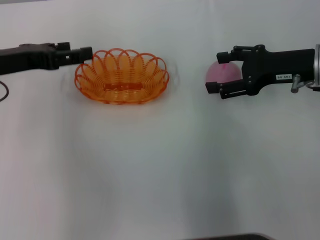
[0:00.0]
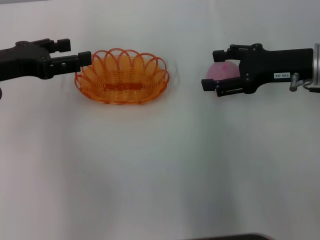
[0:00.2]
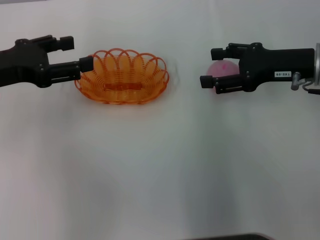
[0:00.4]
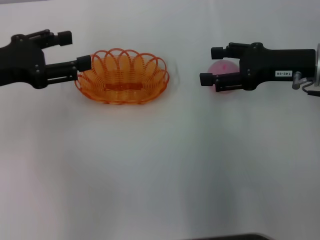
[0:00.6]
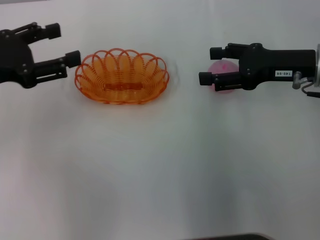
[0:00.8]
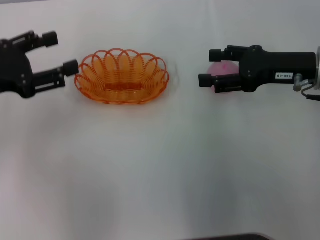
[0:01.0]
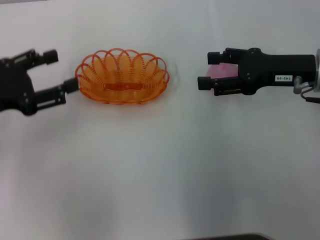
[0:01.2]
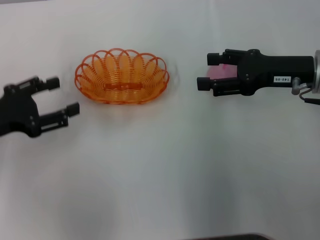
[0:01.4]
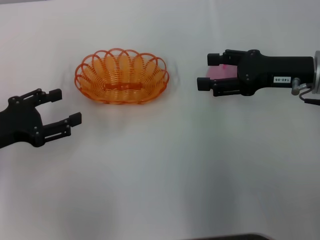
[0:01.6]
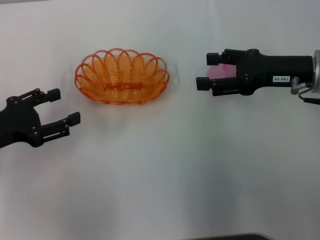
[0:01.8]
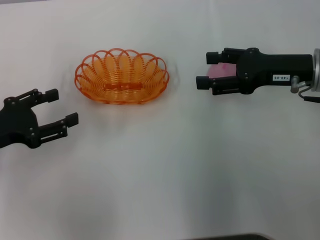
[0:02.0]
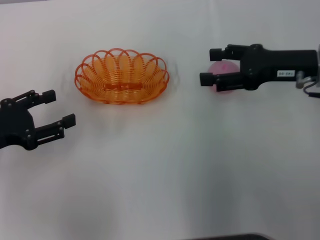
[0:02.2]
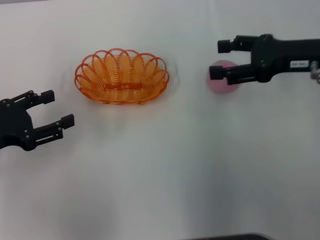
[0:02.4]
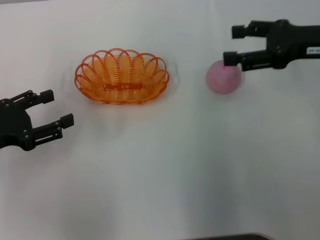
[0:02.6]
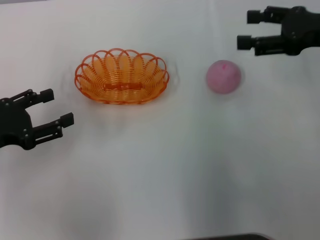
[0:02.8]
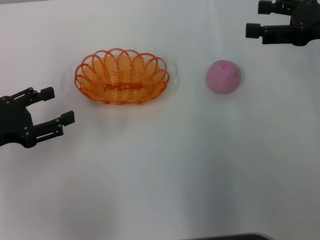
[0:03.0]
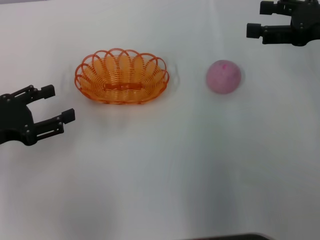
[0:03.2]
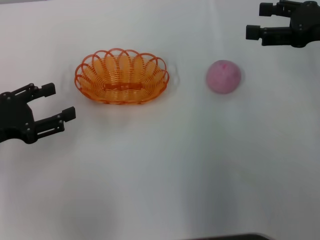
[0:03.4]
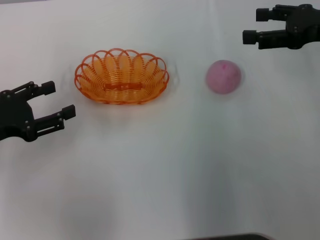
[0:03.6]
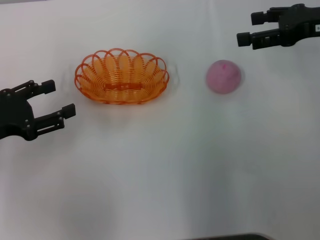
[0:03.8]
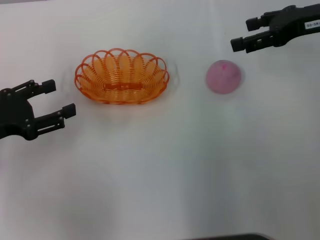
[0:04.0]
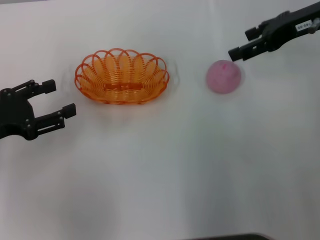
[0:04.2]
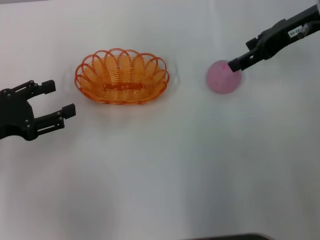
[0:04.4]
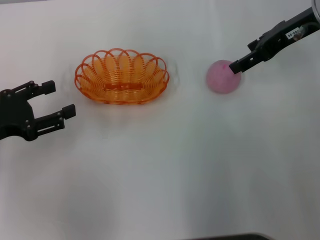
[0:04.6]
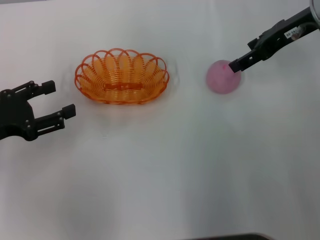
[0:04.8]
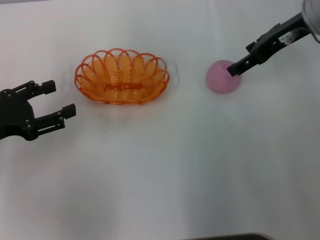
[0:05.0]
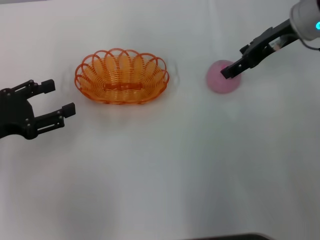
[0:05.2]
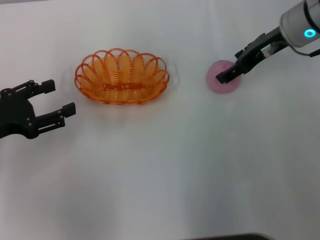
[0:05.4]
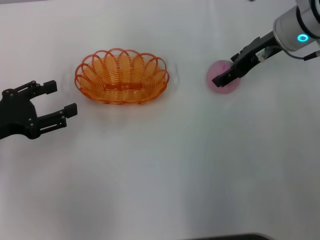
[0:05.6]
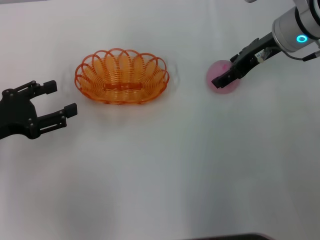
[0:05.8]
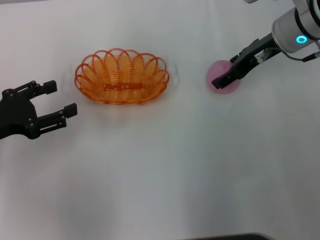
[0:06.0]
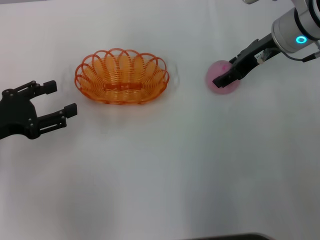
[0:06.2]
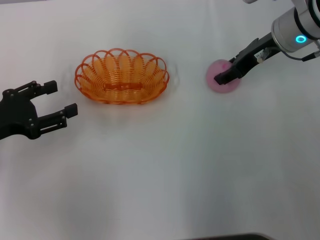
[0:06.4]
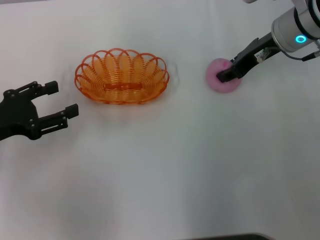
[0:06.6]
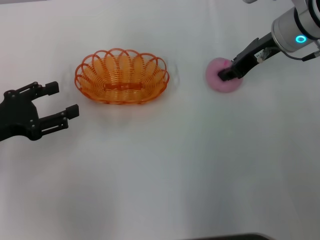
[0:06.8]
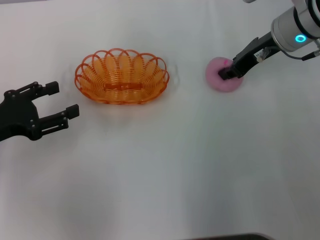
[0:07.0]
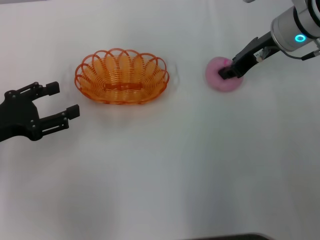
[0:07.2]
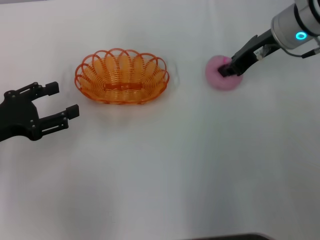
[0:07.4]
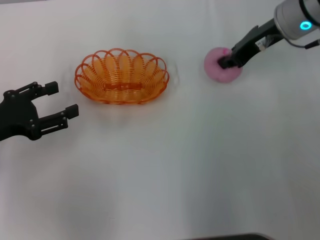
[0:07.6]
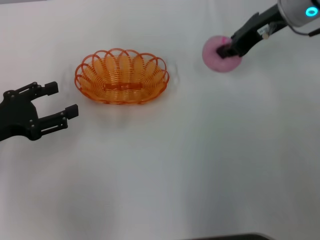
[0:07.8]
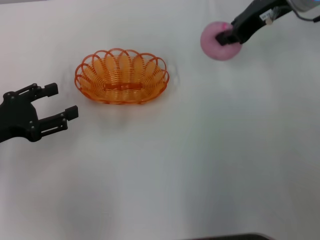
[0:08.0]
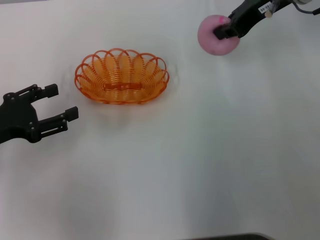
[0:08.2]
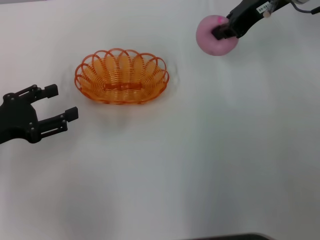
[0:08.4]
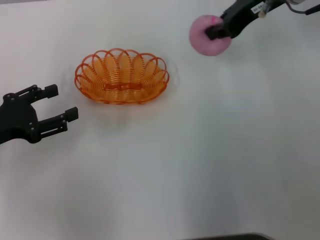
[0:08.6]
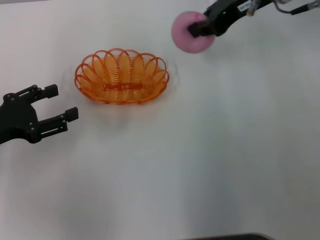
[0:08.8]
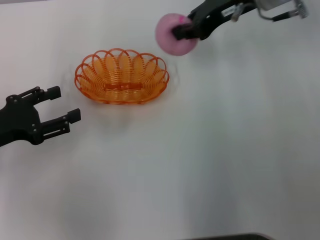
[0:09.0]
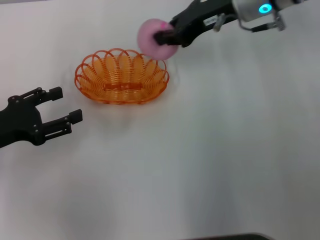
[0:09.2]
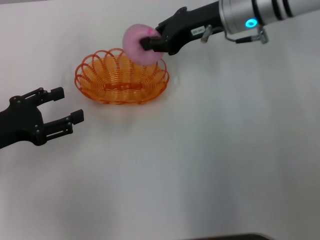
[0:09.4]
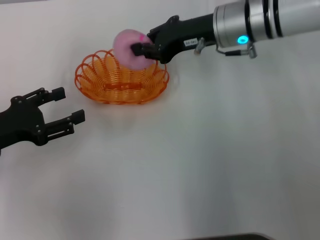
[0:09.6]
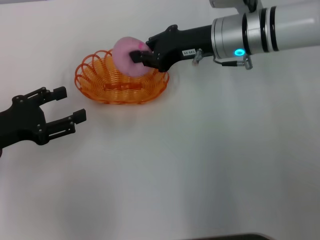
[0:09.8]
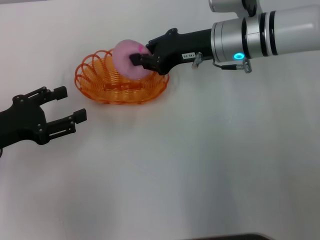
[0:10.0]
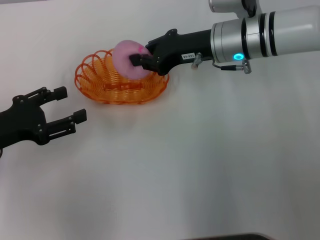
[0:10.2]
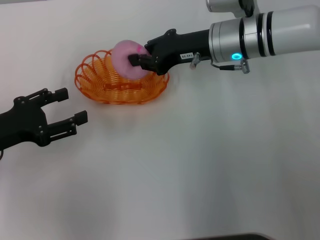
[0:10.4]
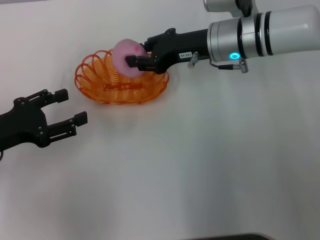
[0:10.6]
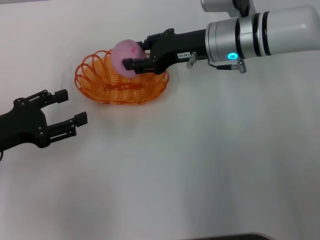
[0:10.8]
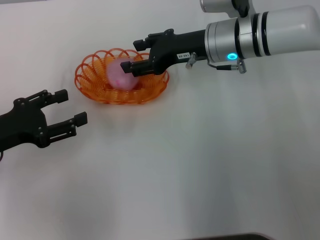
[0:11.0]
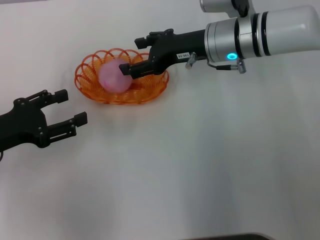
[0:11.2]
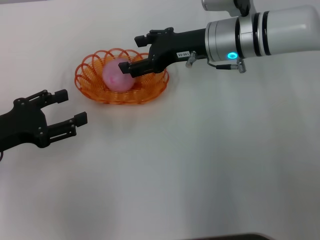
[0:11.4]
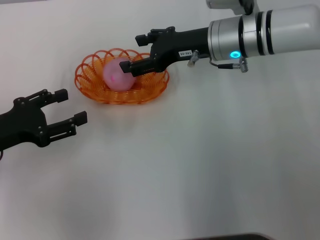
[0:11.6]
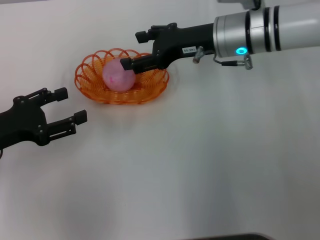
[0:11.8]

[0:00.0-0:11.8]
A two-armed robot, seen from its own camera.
Step, 0:00.0 to 0:08.4: Pick up the peach with the right gripper.
Step, 0:08.6 to 0:11.6: Place the peach into the basket with the right gripper.
0:00.0 to 0:01.4: The left gripper is displaced backward by approximately 5 cm.
0:01.4 to 0:03.0: The right gripper is displaced to the right and upward by some 10 cm.
0:03.0 to 0:04.4: The right gripper moves to the left and forward, about 10 cm.
0:04.4 to 0:06.0: The right gripper shifts about 5 cm downward.
0:06.0 to 0:07.4: The right gripper closes up.
0:07.4 to 0:08.8: The right gripper heads upward, covering some 5 cm.
0:08.8 to 0:10.4: The right gripper is displaced downward by some 10 cm.
0:10.4 to 0:11.8: The right gripper opens its fingers.

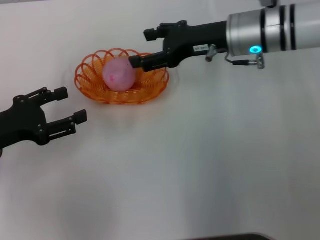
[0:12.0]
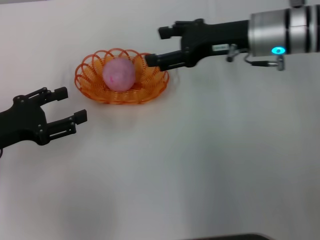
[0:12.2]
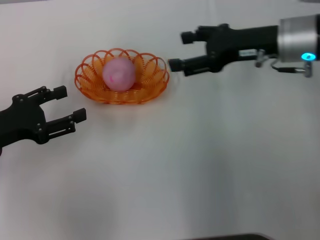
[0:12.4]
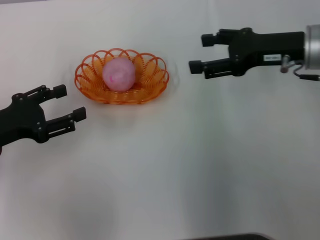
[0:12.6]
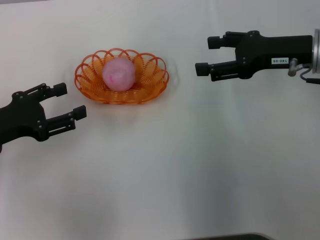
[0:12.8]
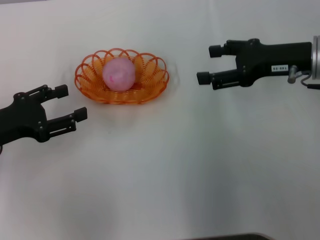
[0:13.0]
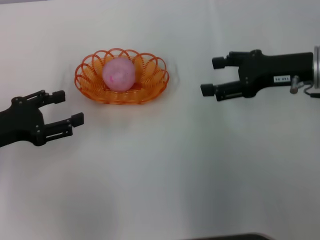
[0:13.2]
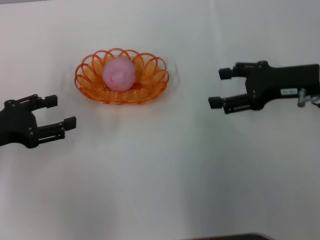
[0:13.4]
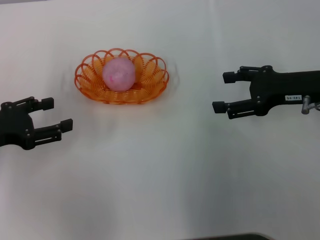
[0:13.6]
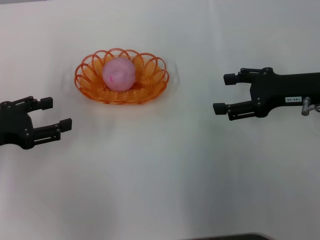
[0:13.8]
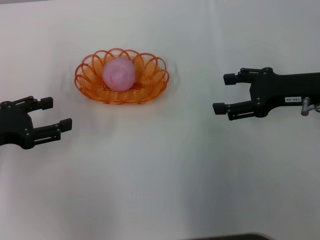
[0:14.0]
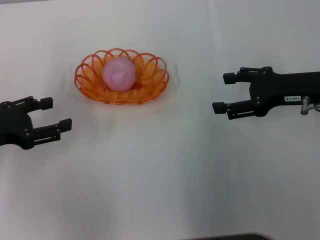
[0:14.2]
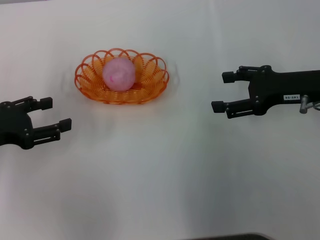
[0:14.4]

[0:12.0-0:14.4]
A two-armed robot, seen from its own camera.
0:12.0 to 0:13.2: The right gripper heads to the right and backward, covering roughly 10 cm.
0:13.2 to 0:14.4: The grippers stay close to where they were, moving slightly.

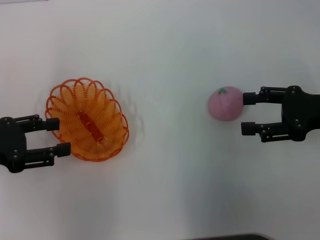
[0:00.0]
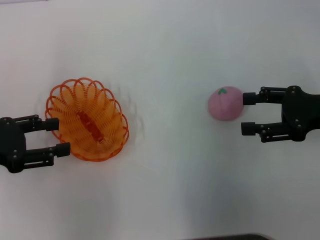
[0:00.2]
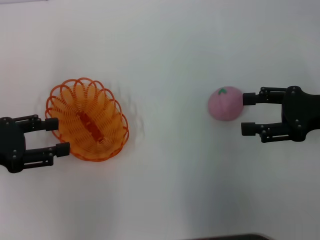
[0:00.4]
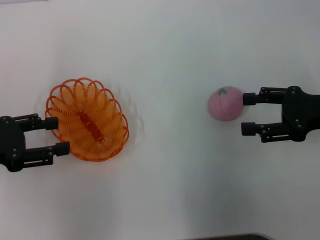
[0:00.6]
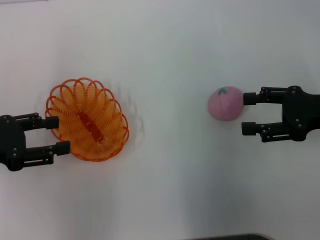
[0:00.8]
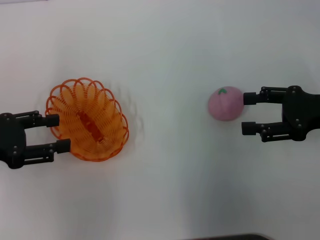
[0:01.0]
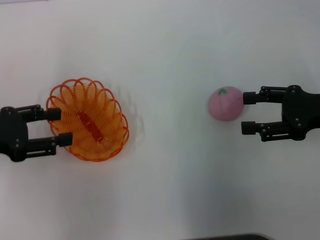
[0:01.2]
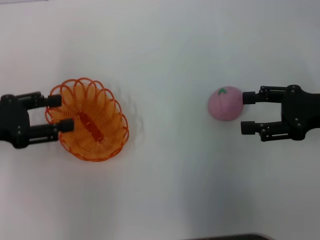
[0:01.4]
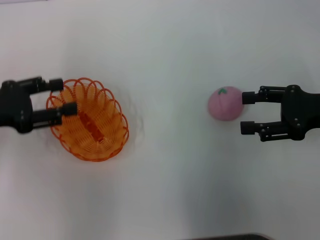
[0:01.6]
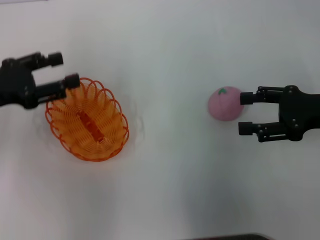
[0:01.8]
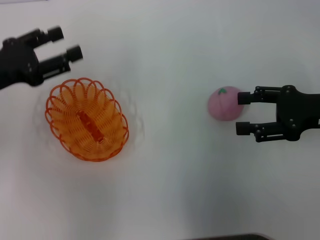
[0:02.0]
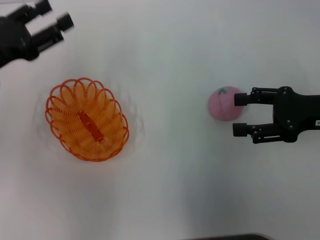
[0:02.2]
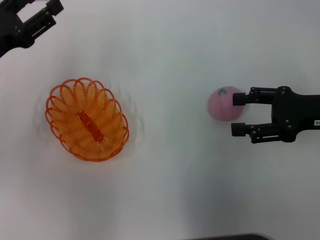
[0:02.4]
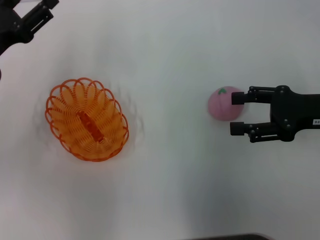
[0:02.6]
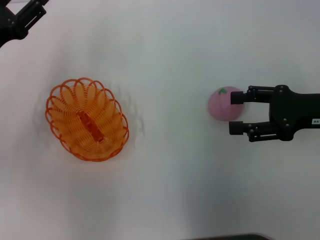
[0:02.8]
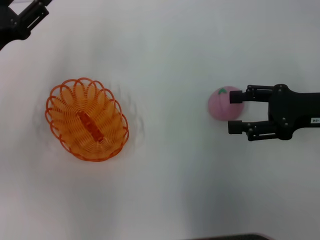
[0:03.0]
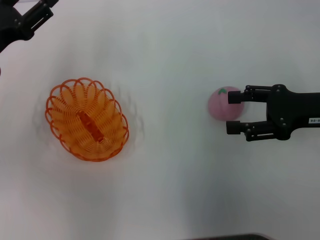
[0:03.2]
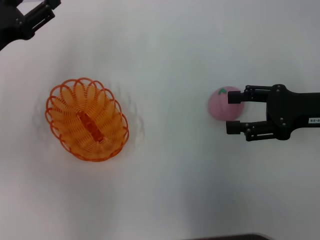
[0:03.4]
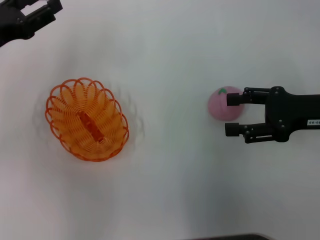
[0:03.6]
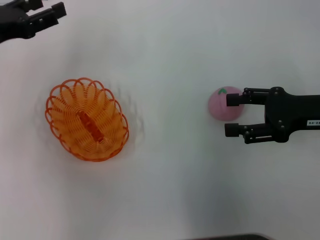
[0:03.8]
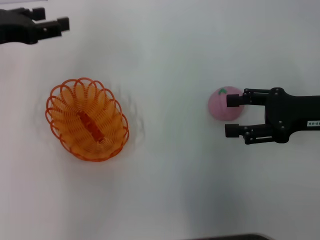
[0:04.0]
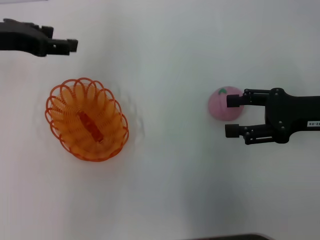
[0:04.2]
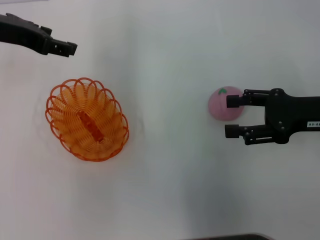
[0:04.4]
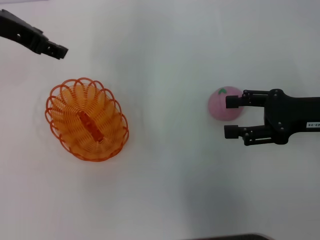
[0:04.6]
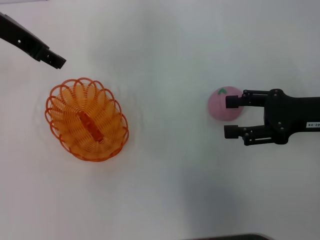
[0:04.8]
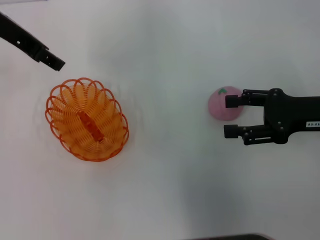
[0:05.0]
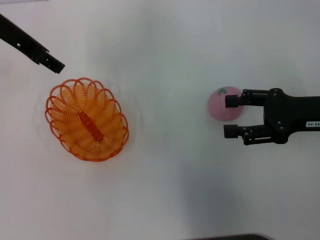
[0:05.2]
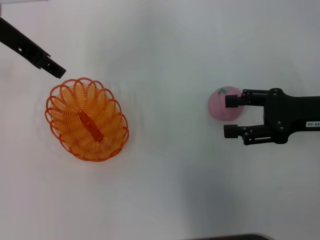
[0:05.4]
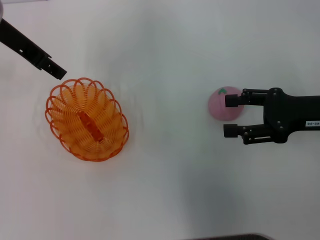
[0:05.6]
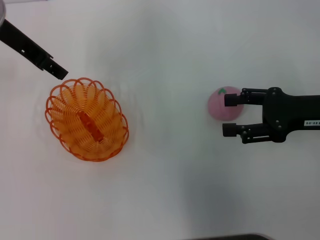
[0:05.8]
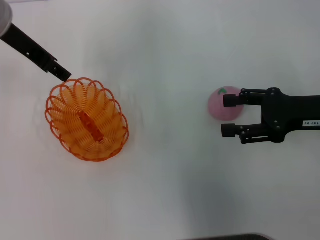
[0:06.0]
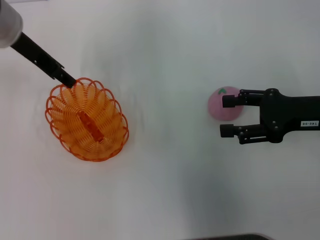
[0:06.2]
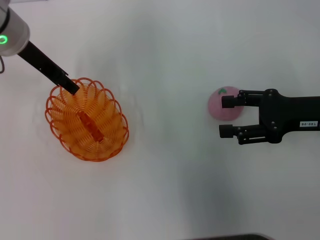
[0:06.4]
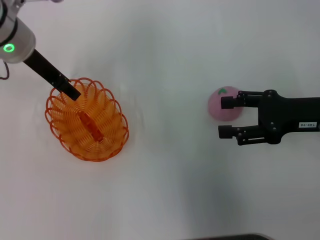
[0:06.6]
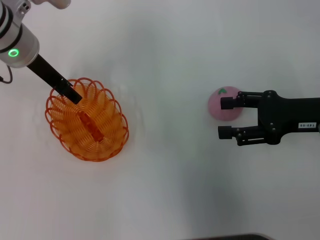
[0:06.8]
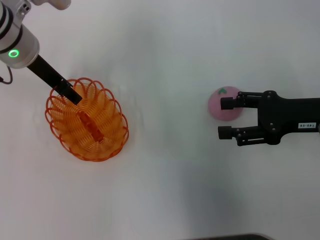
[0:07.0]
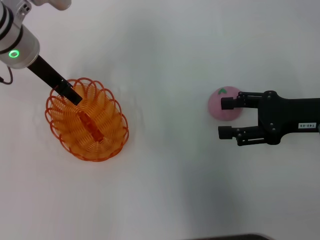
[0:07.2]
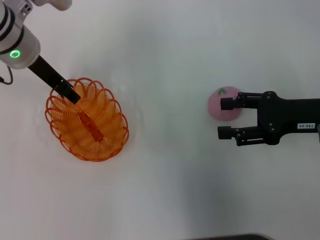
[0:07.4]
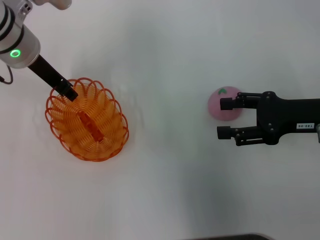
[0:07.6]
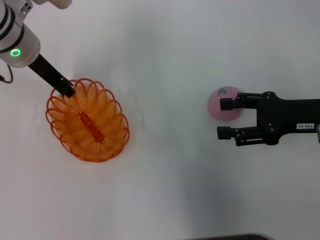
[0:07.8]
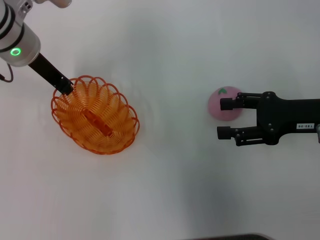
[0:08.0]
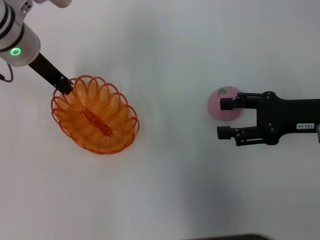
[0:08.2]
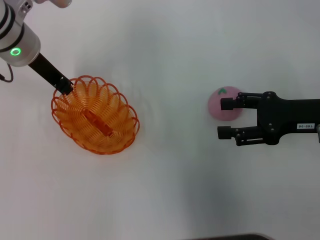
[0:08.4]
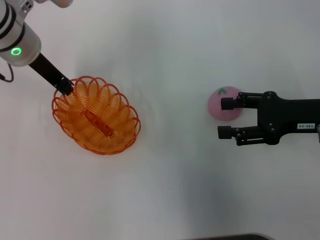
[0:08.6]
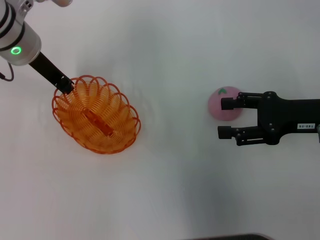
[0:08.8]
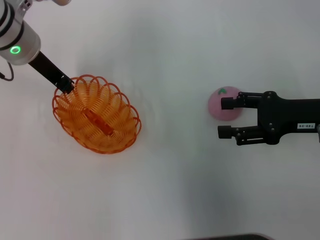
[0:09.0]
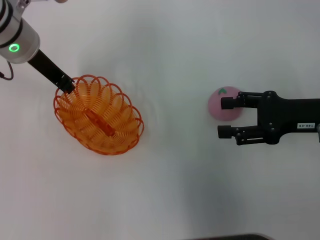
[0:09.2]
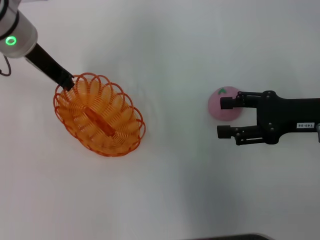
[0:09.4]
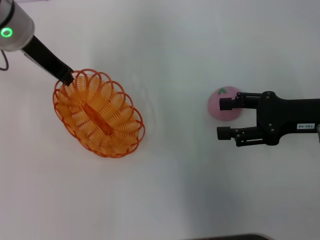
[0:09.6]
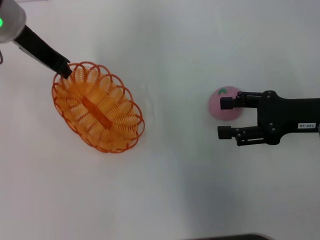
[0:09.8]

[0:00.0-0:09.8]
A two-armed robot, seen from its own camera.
0:00.0 to 0:01.4: There are only small adjustments of the grippers.
0:01.4 to 0:02.8: The left gripper is displaced forward by some 5 cm.
0:02.8 to 0:04.2: The left gripper goes some 10 cm upward.
0:04.2 to 0:05.6: The left gripper is displaced to the right by roughly 5 cm.
0:05.6 to 0:07.0: The left gripper moves downward, about 5 cm.
0:07.0 to 0:08.4: The left gripper closes.
0:08.4 to 0:09.8: There are only small adjustments of the grippers.
